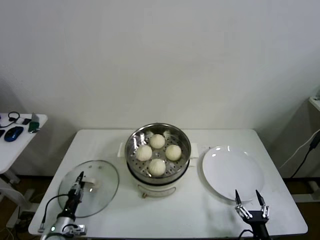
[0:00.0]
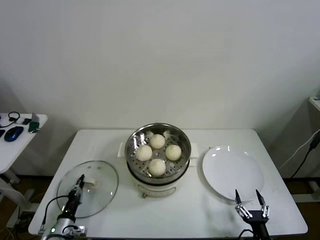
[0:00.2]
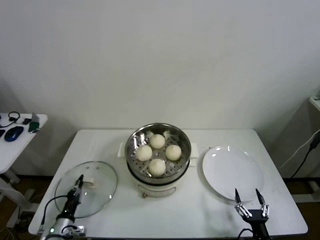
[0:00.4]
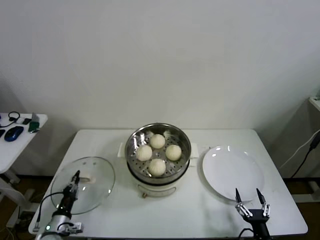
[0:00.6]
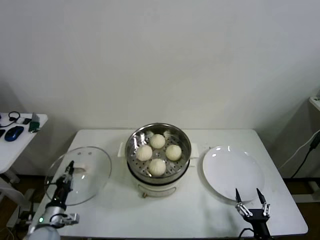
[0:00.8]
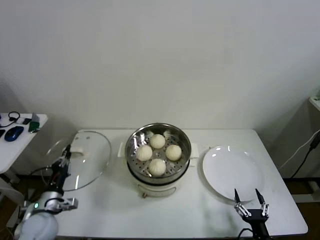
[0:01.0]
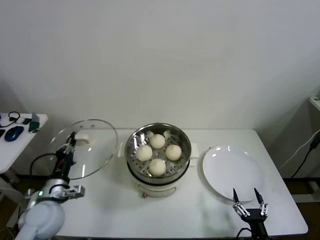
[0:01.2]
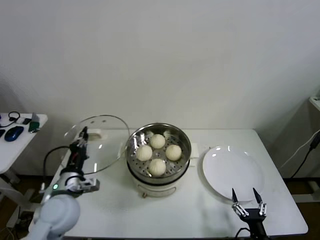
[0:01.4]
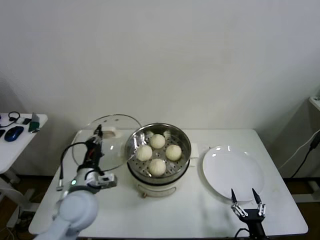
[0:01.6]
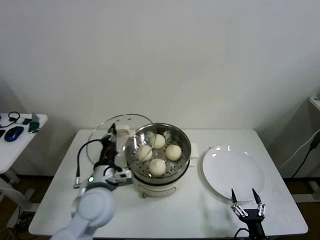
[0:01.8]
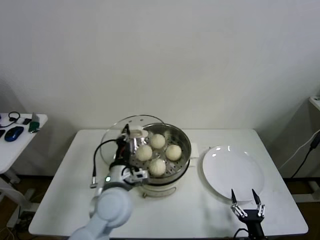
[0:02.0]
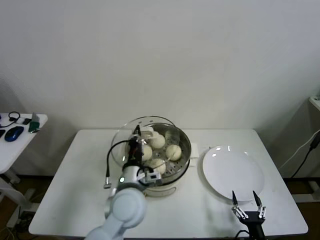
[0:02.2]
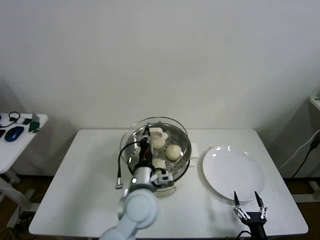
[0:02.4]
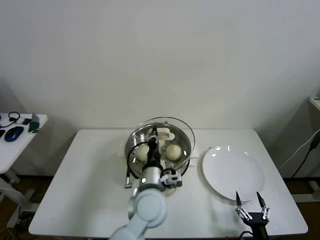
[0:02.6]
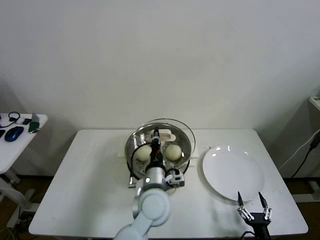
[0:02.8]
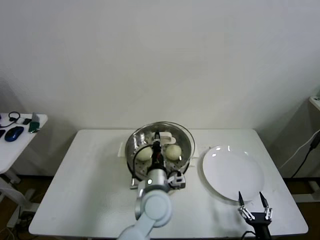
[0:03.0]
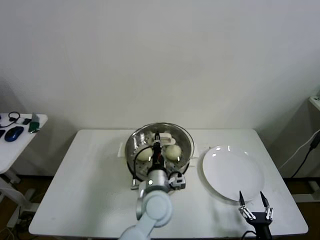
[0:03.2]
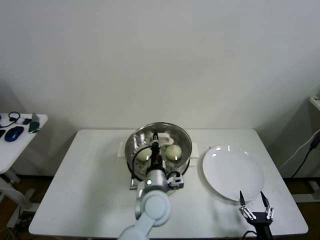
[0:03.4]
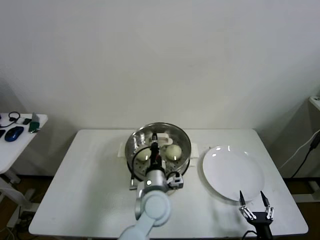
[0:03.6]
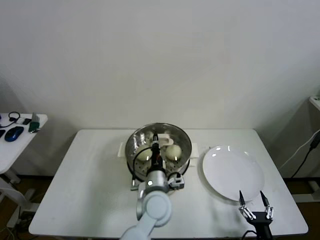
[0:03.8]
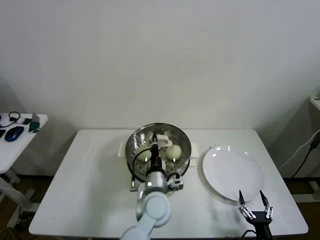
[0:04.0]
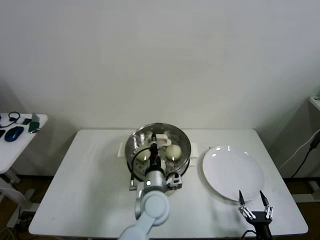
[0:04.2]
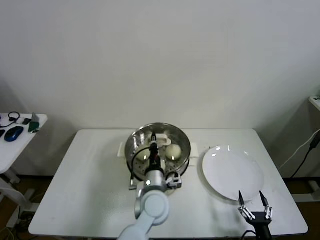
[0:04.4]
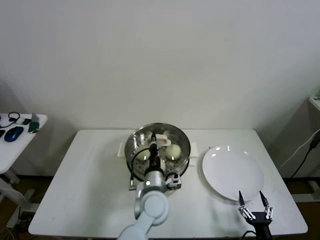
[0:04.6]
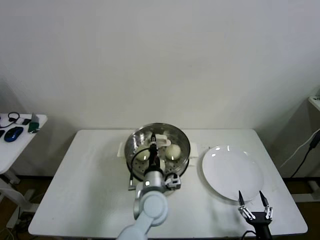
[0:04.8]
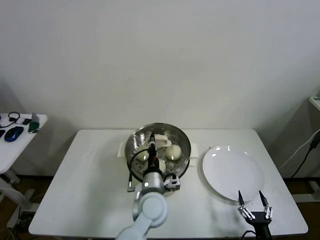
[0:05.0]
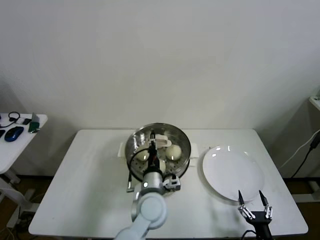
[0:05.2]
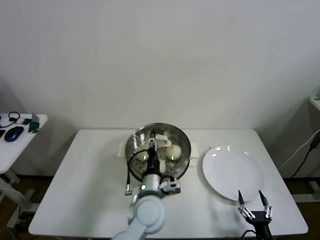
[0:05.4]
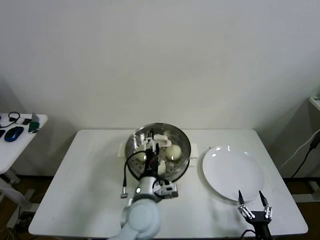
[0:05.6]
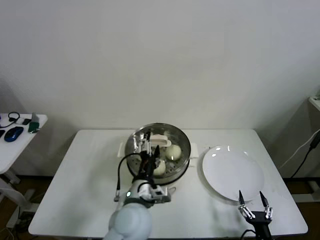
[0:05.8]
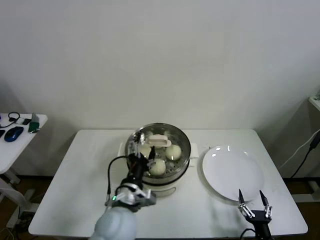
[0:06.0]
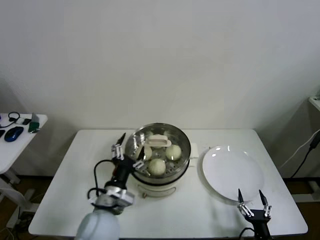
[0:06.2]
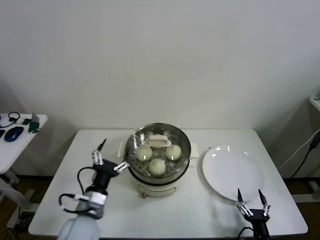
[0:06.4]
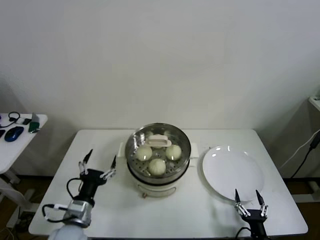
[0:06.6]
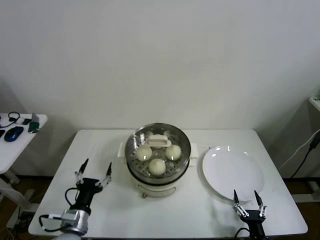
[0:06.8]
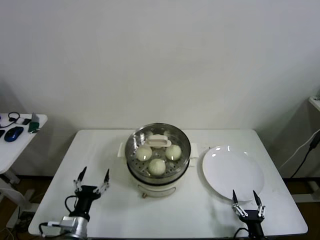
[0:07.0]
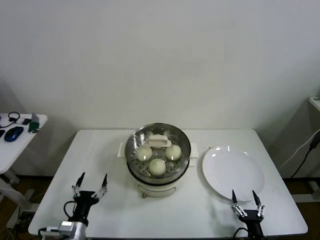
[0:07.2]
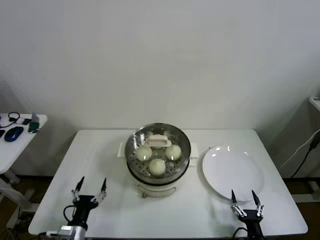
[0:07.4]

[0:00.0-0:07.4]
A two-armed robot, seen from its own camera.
Step, 0:00.4 to 0:05.2: Place the pot lid on the steamer with left gripper.
0:00.0 to 0:01.4: The left gripper travels upward by approximately 20 cm, and closes up.
0:01.4 to 0:03.0: The left gripper is displaced to the right by about 25 cm.
0:03.0 to 0:04.4: The grippers stay close to where they were, moving slightly.
0:04.4 to 0:06.0: The left gripper travels to the left, backward and upward by about 10 cm, and opens up.
0:06.0 to 0:07.4: The left gripper shifts about 25 cm to the left and downward.
